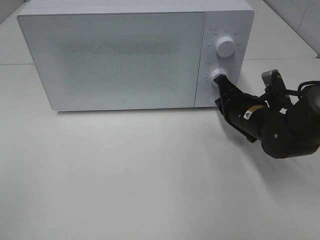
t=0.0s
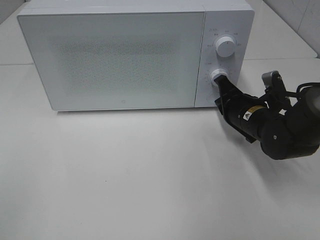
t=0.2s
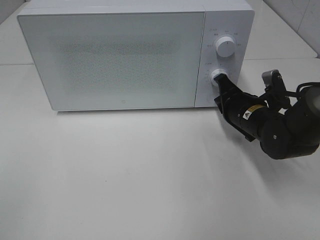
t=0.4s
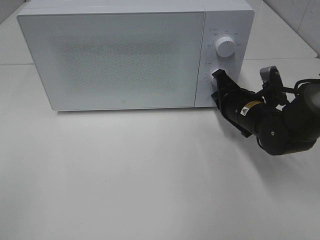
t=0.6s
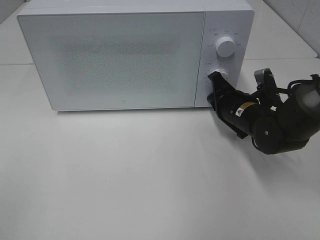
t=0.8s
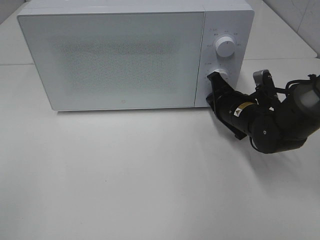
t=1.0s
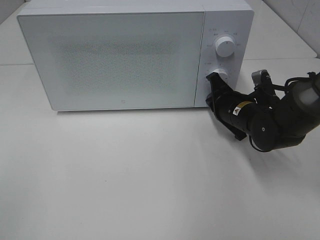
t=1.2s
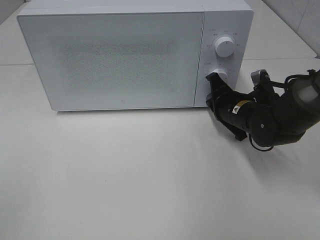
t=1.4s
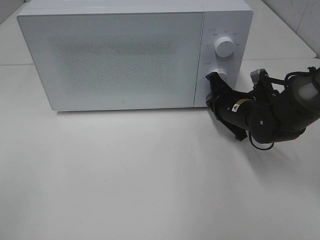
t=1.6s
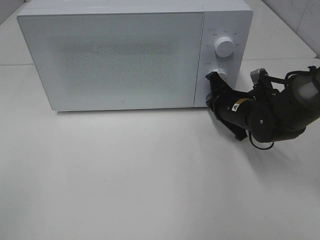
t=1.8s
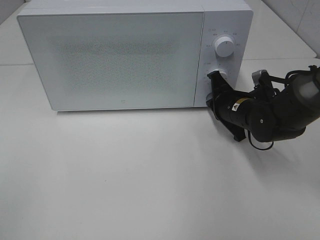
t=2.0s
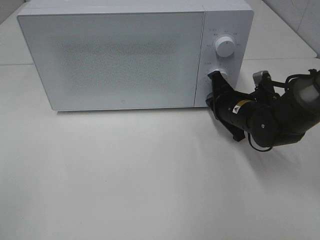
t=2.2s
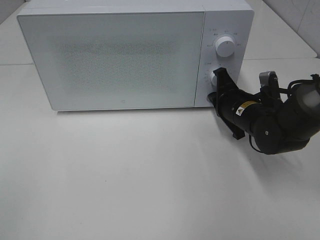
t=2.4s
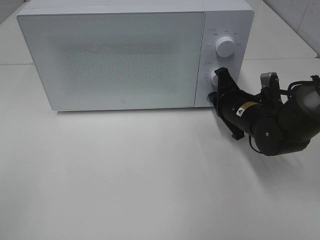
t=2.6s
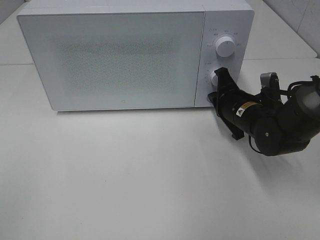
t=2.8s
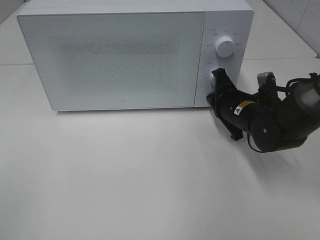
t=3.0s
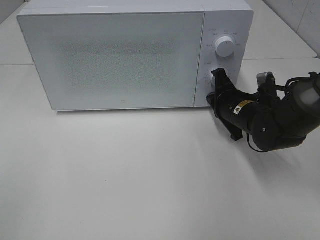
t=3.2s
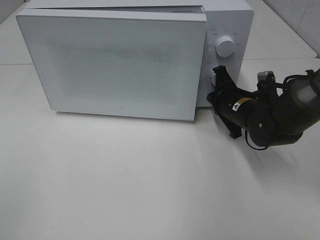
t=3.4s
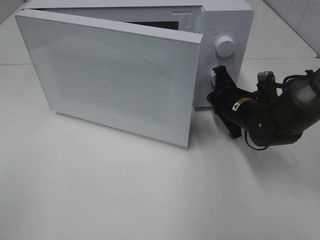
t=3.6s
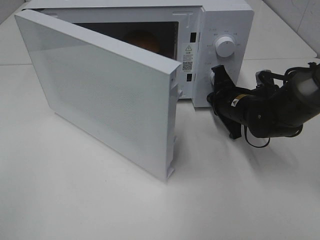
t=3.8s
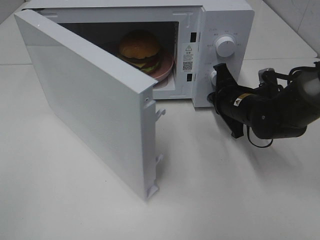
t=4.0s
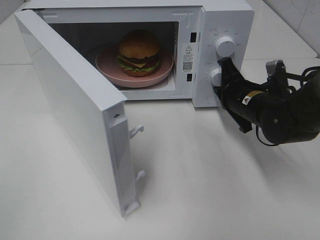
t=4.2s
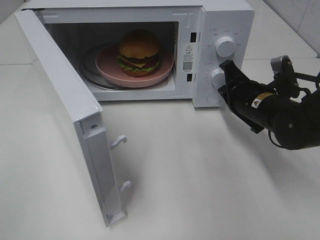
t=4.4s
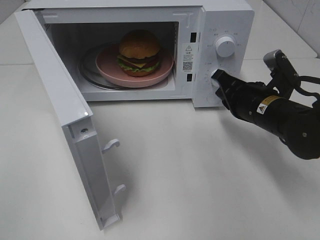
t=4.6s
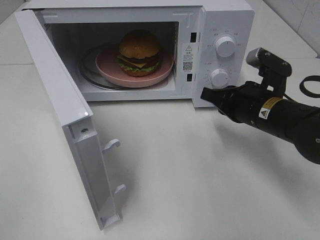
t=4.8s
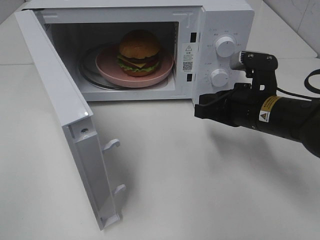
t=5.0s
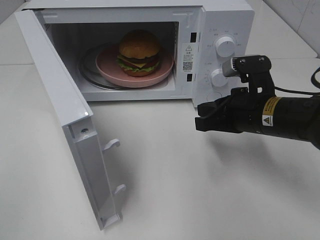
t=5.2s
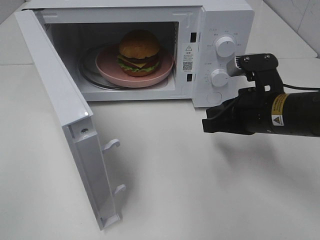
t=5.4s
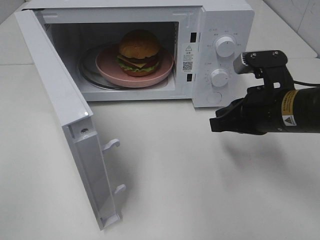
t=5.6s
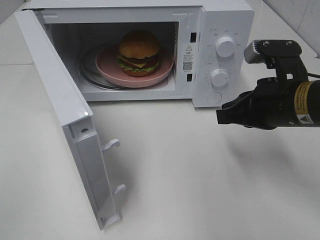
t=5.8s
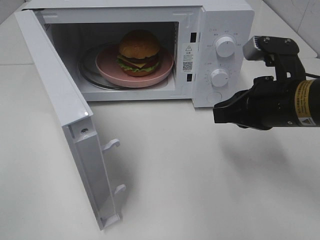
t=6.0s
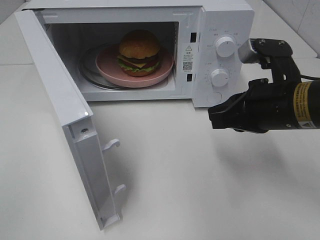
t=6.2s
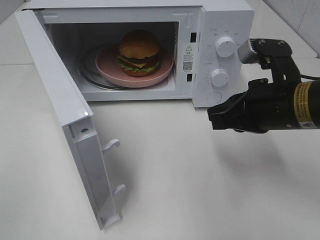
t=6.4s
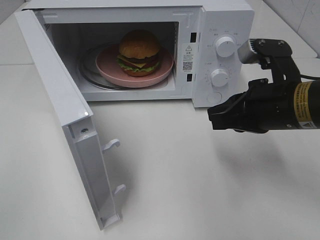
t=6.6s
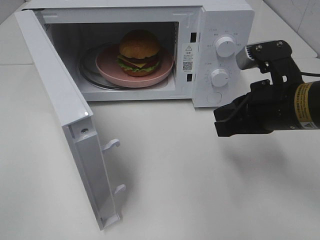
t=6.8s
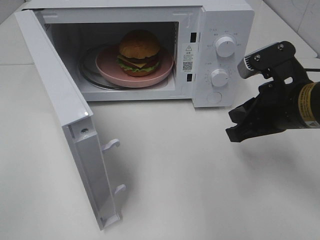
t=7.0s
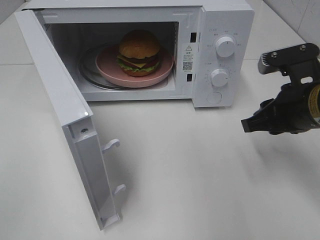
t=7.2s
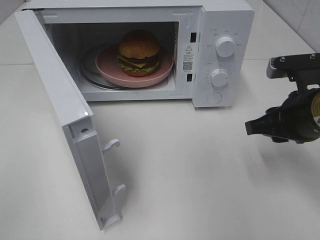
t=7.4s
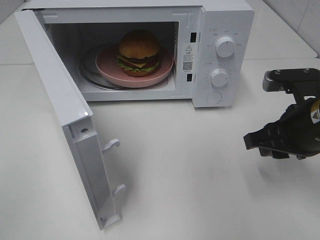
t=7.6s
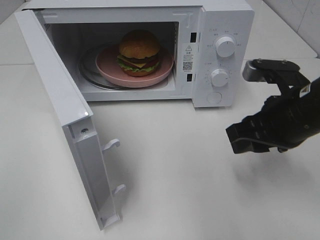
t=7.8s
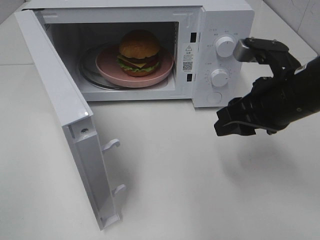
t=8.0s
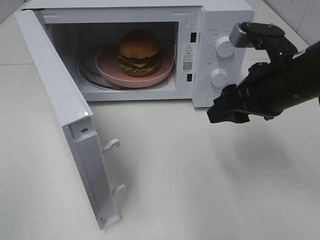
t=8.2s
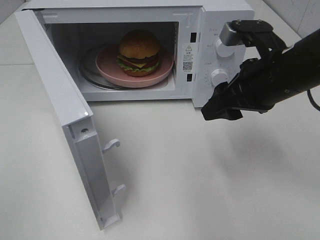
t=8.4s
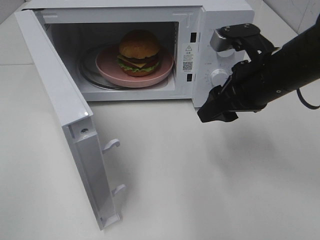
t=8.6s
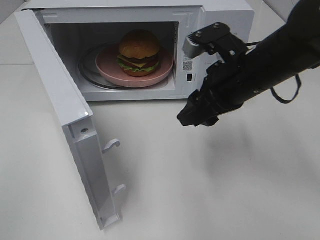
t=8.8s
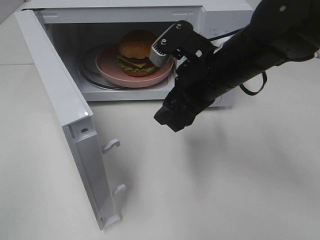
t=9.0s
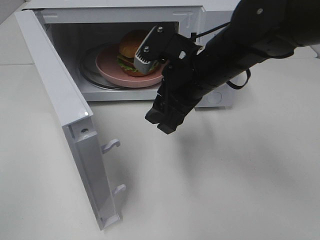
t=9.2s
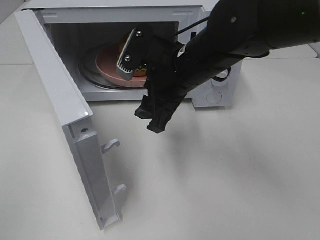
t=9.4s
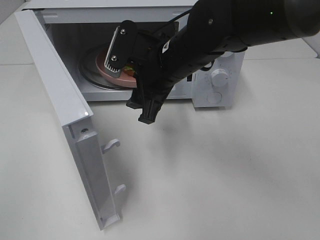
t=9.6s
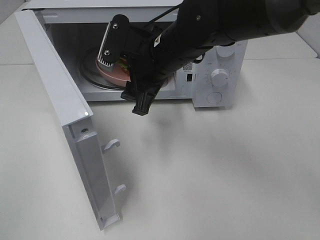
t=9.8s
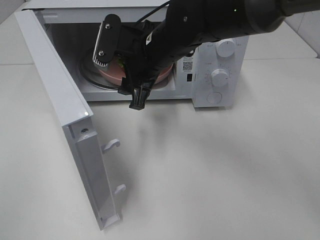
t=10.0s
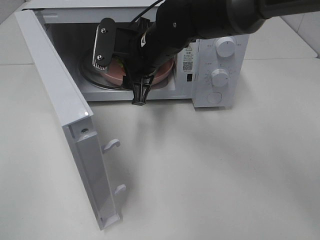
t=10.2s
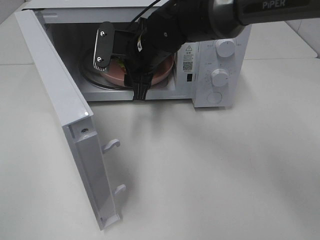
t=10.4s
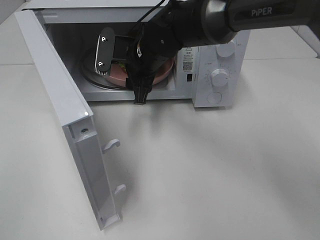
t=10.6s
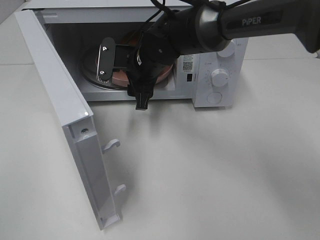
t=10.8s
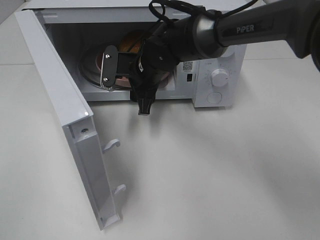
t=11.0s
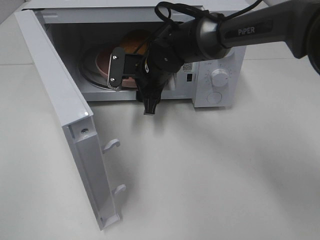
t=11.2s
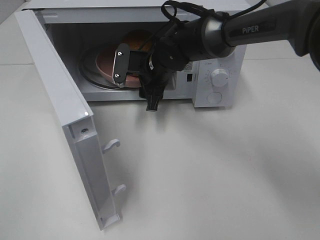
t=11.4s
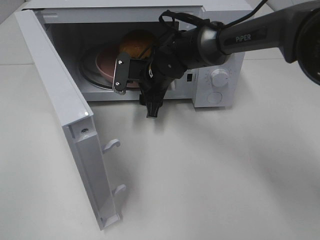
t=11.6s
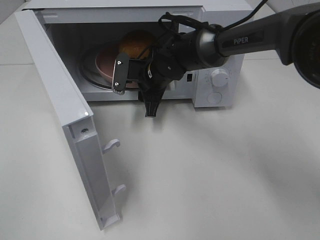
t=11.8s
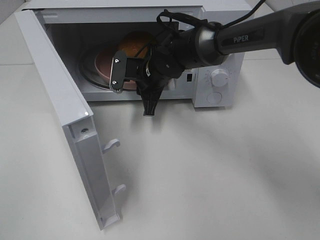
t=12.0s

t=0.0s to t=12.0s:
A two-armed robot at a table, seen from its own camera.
Task of the whole recording: Heat the burger.
Step, t=0.0s to t=4.2s: Right hand: press the switch.
t=0.0s to t=3.0s: There are only small adjustments of the grippers.
t=3.0s to t=4.4s: The right gripper ends up some 5 cm from where it was.
t=4.4s to t=6.0s: The right gripper moves backward and upward, approximately 10 cm.
t=6.0s to t=7.6s: The right gripper opens its fingers.
t=7.6s to t=9.0s: The right gripper moves to the left and forward, approximately 15 cm.
t=9.0s to t=10.4s: The right gripper goes some 15 cm to the left and forward.
t=10.4s to t=12.0s: The right gripper travels downward by some 5 cm, and closes.

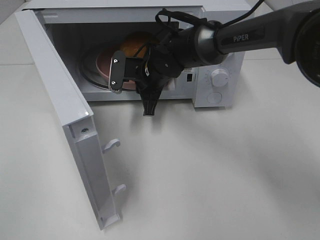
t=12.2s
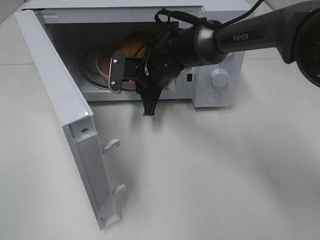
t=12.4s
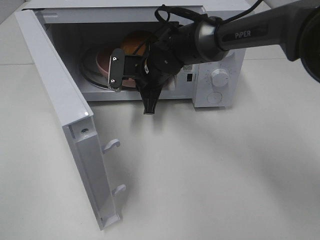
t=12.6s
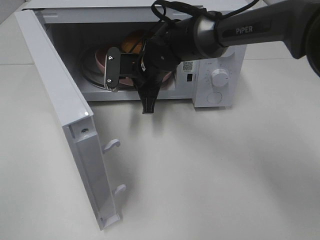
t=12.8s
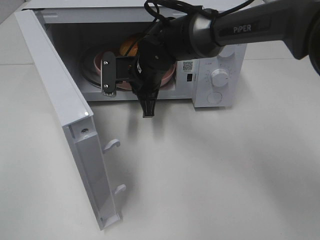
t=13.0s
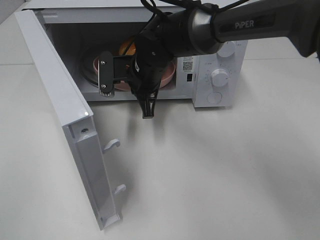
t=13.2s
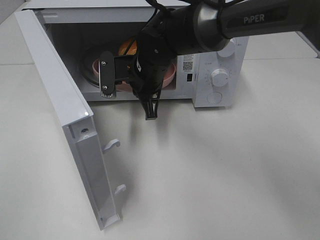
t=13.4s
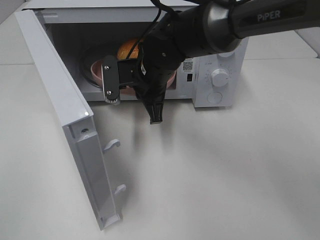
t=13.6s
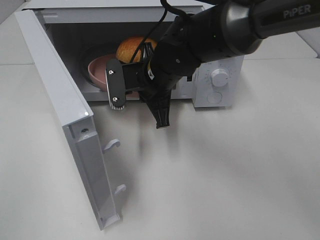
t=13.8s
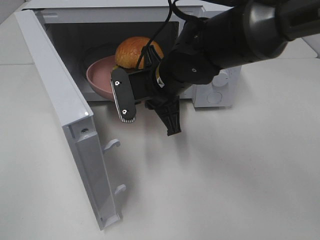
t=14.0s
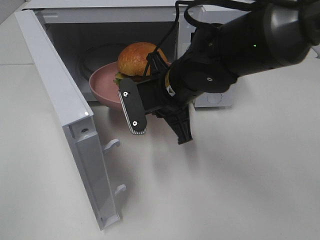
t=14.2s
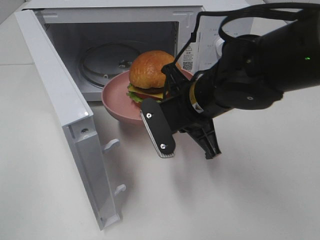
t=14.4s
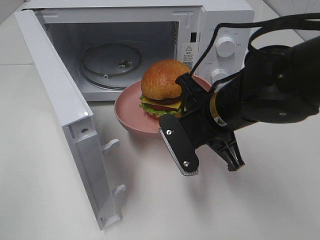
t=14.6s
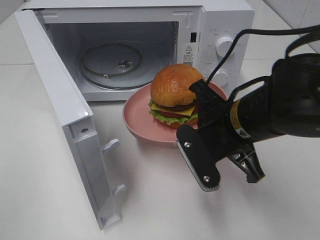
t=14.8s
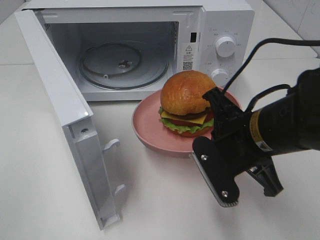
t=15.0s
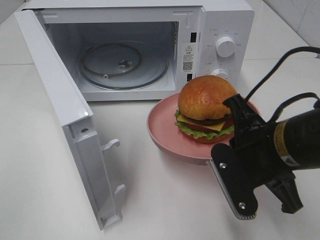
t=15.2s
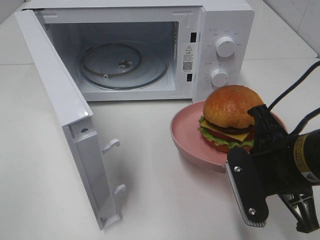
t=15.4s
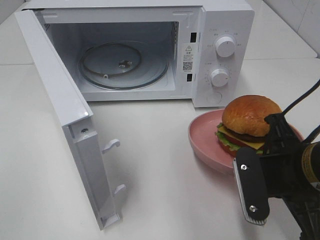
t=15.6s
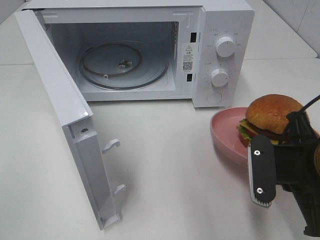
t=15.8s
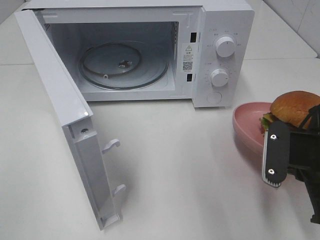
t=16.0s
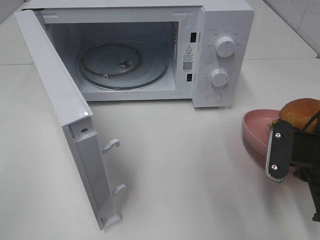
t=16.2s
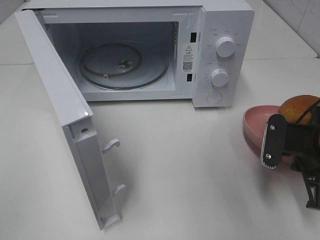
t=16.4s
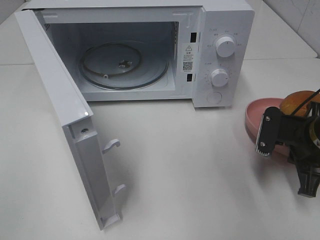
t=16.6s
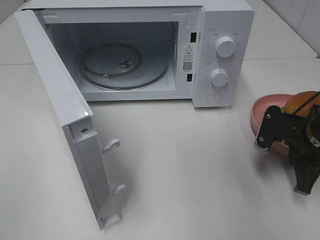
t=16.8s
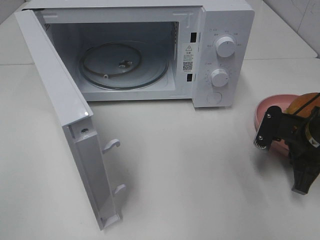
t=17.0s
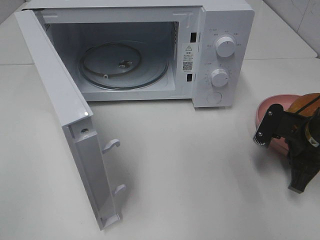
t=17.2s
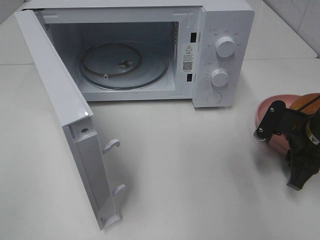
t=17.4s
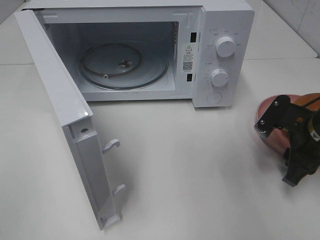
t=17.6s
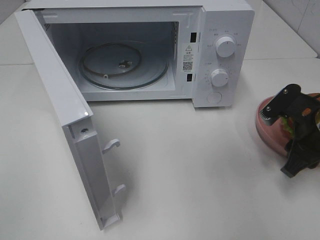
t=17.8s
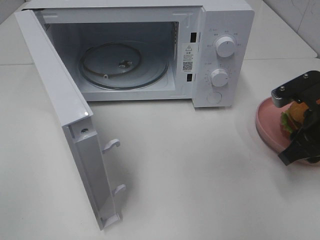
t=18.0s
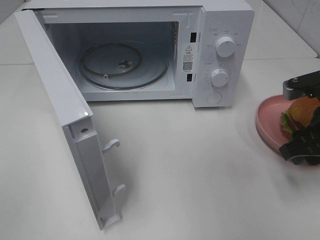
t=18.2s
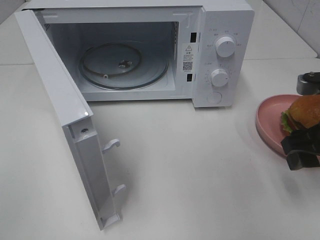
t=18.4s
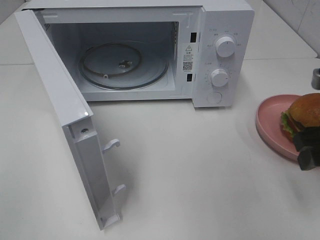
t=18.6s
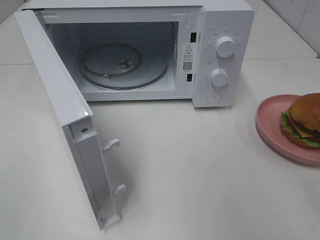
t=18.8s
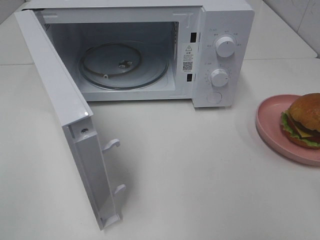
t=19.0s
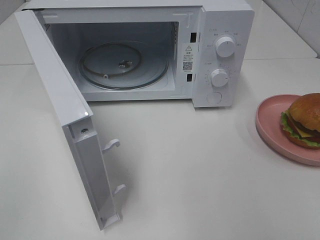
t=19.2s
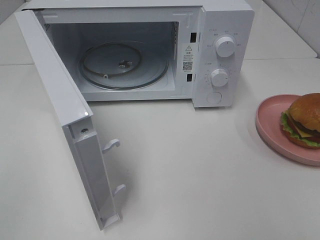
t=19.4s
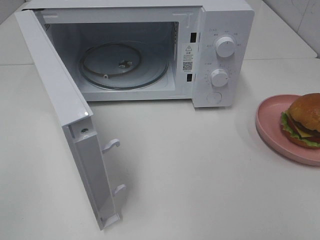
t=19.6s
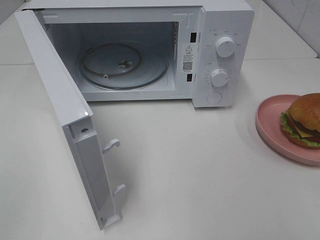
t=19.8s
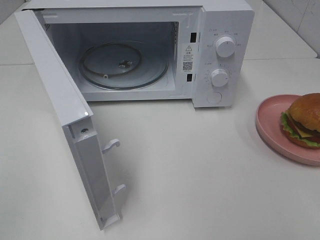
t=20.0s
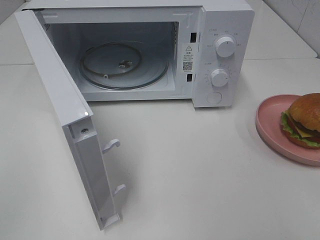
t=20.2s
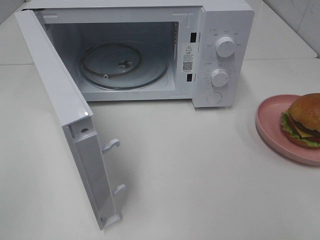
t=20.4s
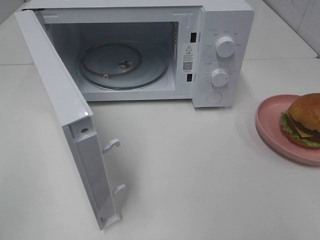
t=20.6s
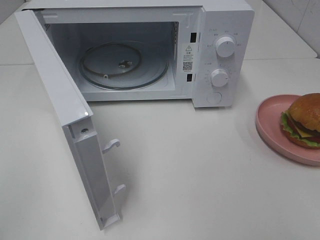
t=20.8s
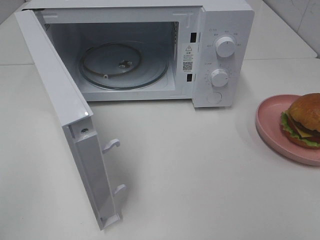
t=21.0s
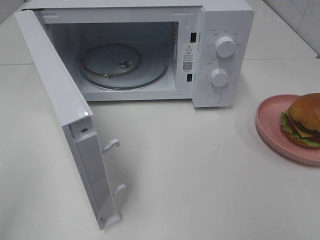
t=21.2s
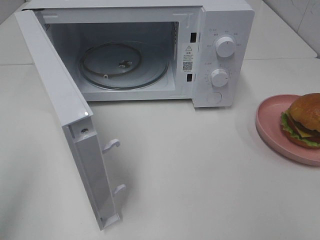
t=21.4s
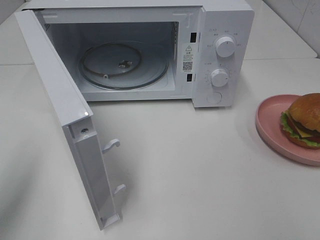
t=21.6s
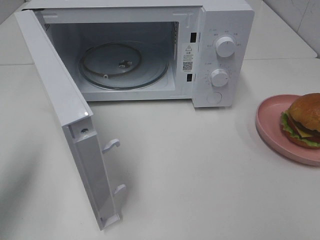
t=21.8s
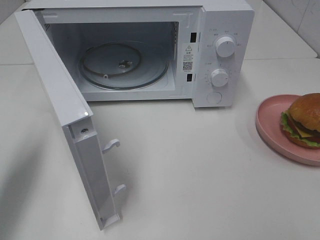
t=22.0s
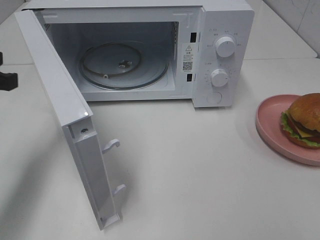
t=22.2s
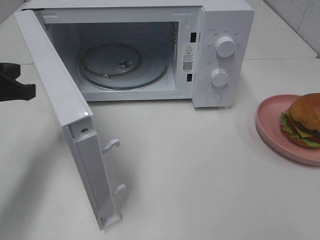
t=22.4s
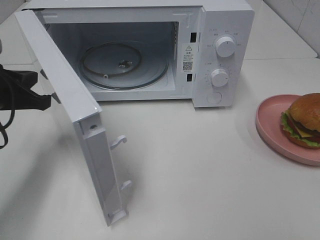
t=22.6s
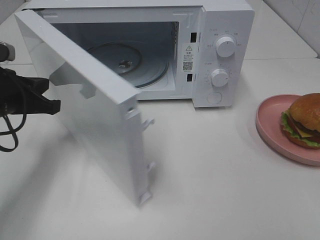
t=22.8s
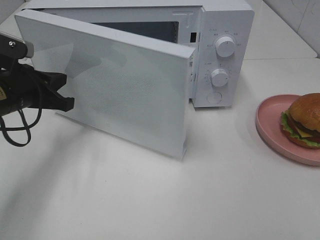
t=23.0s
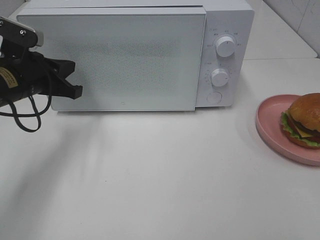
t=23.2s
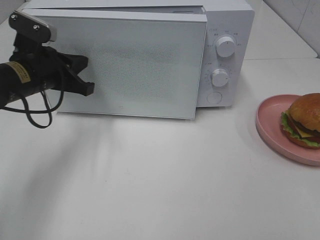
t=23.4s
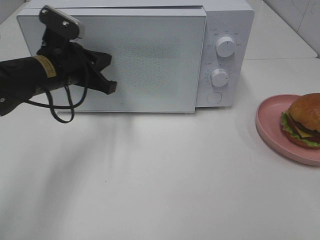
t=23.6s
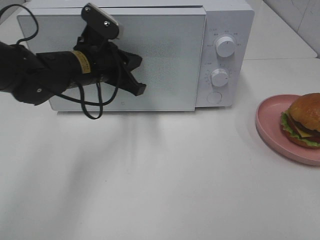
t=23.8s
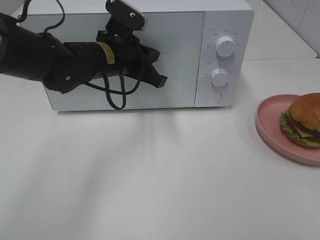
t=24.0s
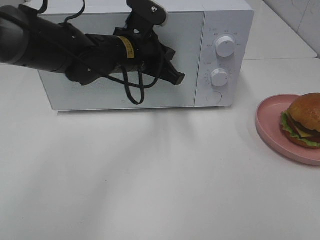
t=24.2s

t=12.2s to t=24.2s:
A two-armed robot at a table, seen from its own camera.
Task of the whole recording: Heat the burger.
Step, t=12.4s to t=17.2s: Right hand: place the plate on the table.
t=12.2s to t=13.8s: The right gripper heads backward and upward, covering about 10 cm.
t=13.8s to t=15.2s: The right gripper travels backward and to the right by roughly 20 cm.
t=15.2s to t=16.6s: The right gripper travels to the right, forward and downward by some 15 cm.
t=16.6s to t=18.2s: The right gripper is displaced upward by approximately 5 cm, and opens up.
t=18.2s to t=19.8s: The right gripper moves backward and upward, roughly 25 cm.
t=21.2s to t=22.6s: The left gripper travels forward and downward by about 30 cm.
t=22.6s to t=24.2s: The left gripper travels to the right and forward by about 25 cm, and opens up.
